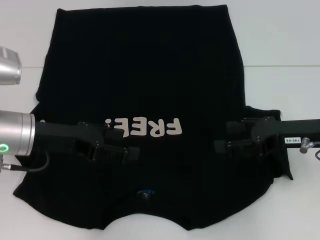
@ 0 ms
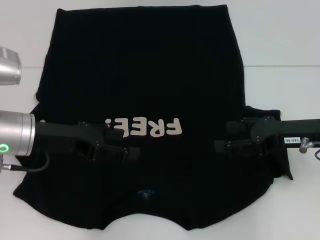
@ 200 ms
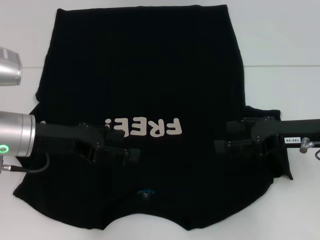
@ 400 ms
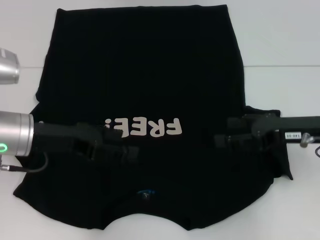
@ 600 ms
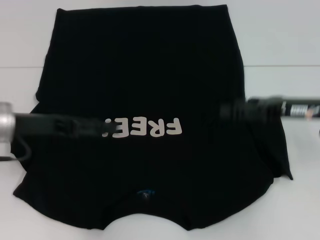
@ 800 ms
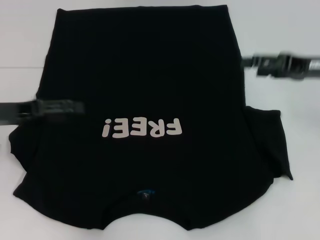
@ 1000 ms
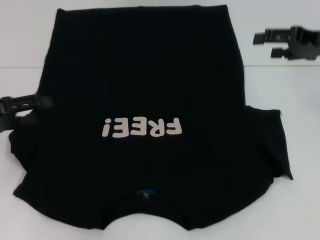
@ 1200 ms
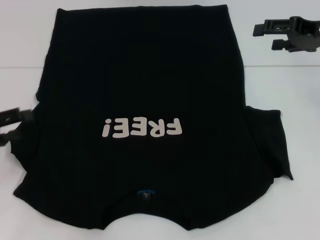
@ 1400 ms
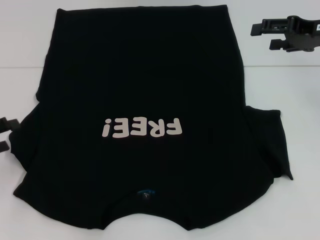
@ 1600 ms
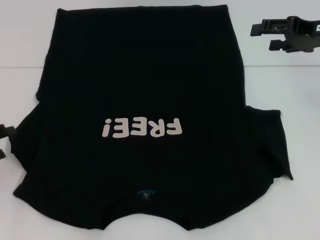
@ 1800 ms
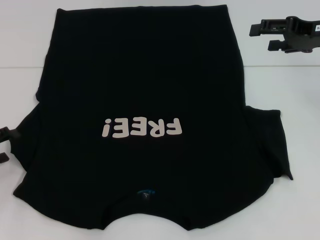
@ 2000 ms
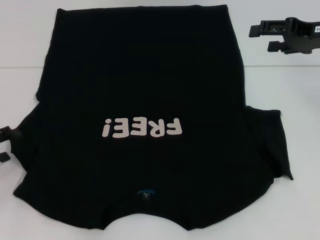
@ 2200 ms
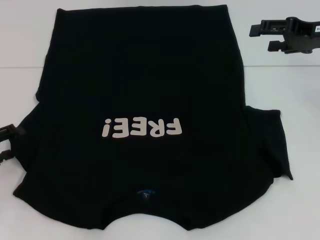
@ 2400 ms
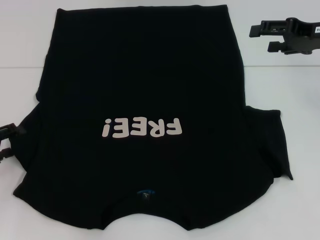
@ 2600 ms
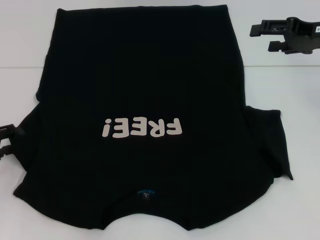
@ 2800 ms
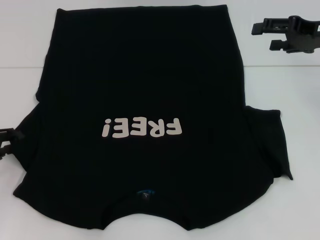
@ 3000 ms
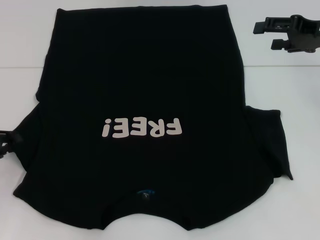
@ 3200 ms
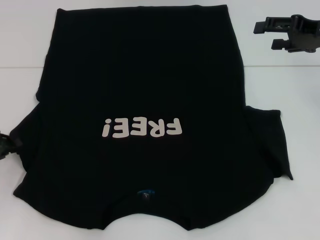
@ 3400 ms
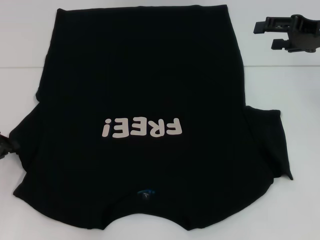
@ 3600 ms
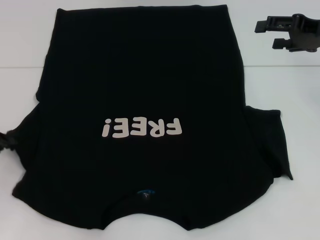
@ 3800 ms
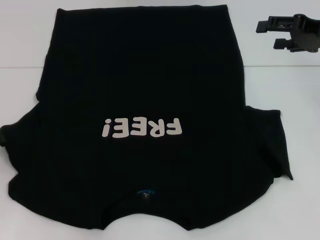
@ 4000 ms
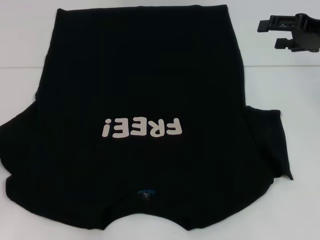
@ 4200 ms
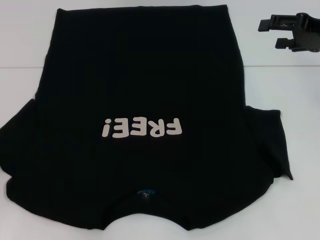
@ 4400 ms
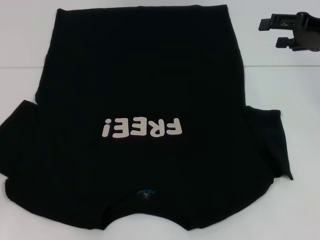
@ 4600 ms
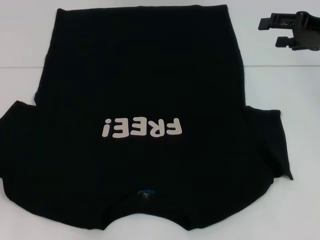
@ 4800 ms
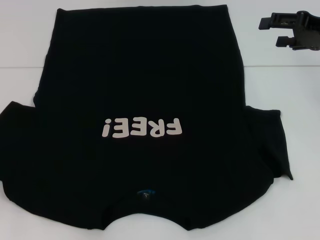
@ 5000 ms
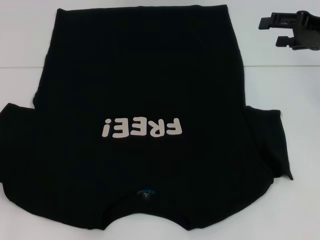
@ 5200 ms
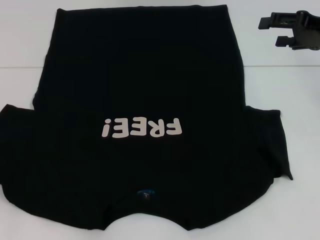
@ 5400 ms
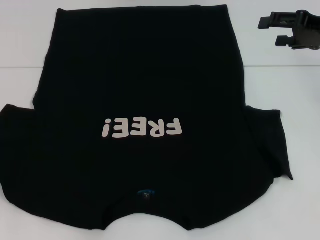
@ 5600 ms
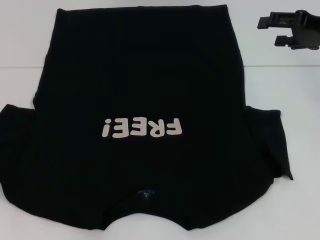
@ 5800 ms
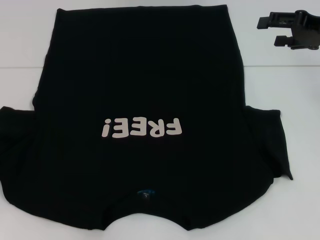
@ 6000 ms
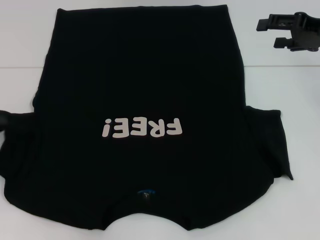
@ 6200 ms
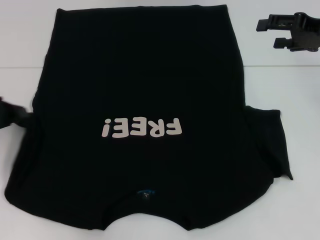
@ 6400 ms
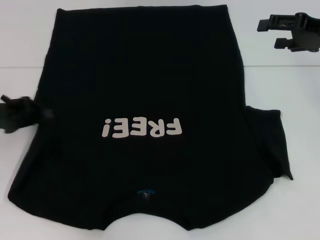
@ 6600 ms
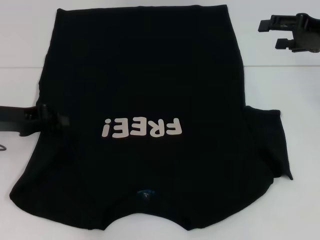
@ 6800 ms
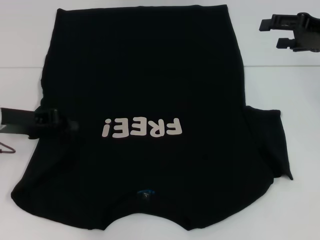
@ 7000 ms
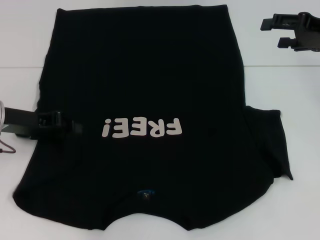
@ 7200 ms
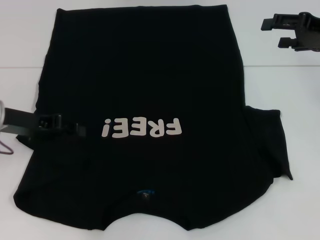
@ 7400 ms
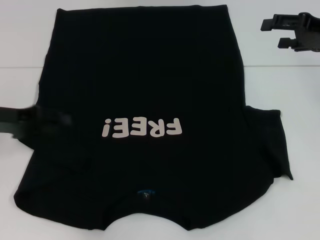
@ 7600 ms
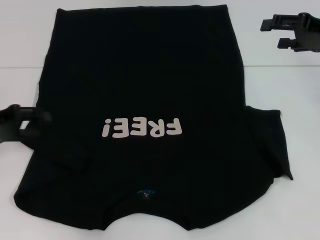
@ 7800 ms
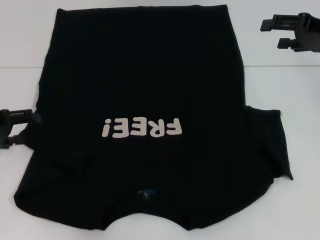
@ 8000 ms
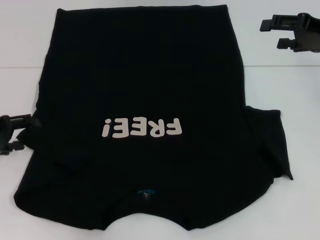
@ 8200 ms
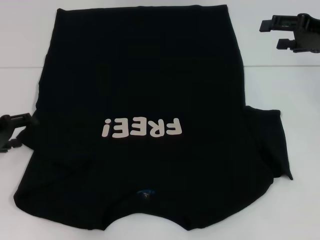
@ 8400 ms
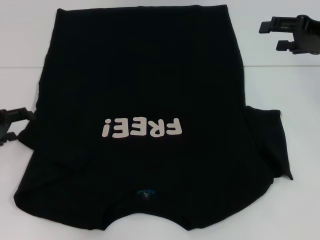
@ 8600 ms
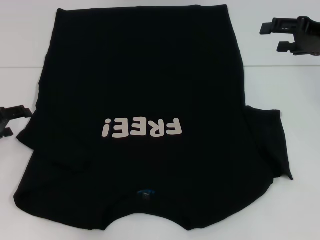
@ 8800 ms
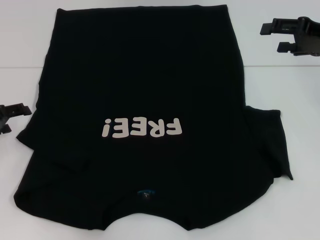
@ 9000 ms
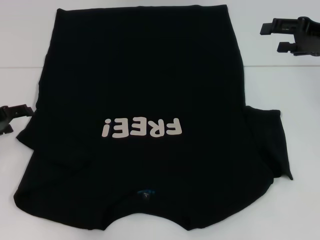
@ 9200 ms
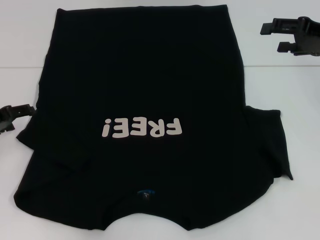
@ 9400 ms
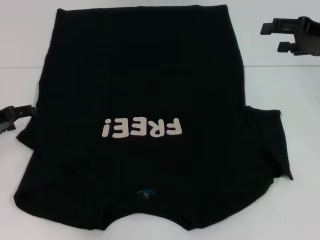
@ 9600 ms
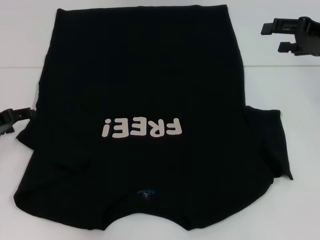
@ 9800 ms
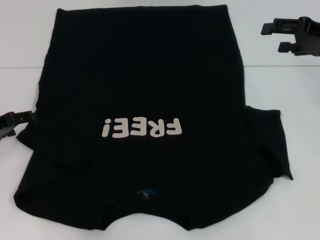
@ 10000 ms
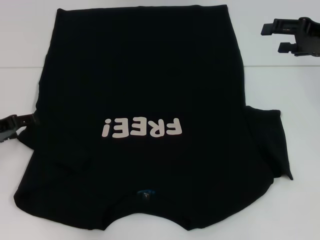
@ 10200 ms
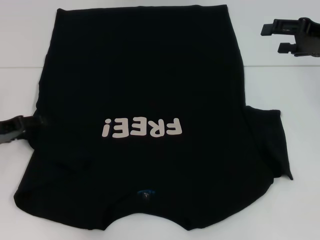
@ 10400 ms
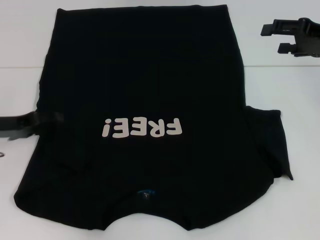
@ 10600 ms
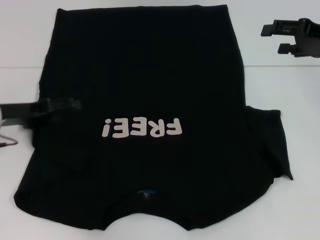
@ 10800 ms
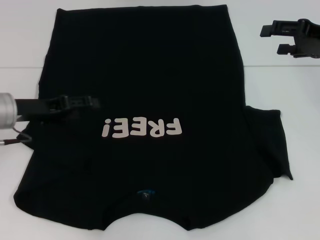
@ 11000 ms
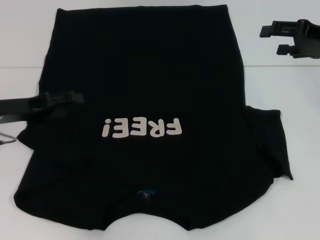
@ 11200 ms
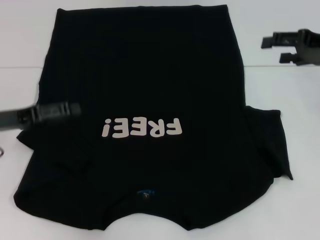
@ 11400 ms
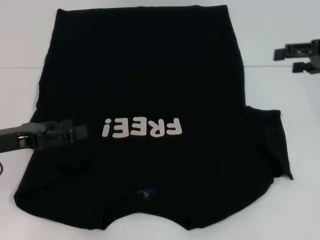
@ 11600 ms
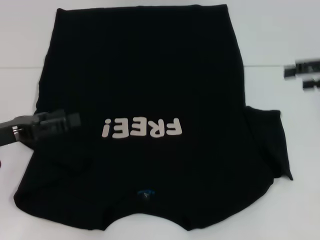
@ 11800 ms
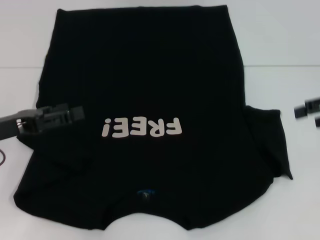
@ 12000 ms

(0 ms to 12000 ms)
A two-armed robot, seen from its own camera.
Step, 0 ms - 8400 ms: Fold the bottom left sleeve with your left hand.
0 ms - 1600 ms: The left gripper is displaced to the left by about 15 cm. The right gripper travels forward and upward by about 15 cm.
1600 ms - 3000 ms: The grippers stay close to where they were, moving slightly.
3000 ms - 4400 ms: The left gripper closes its fingers.
4400 ms - 6000 ms: The grippers move only a little.
6000 ms - 7600 ms: The left gripper heads to the right and forward, covering about 10 cm.
7600 ms - 9000 ms: The left gripper changes place by about 5 cm, and opens up.
9000 ms - 10400 ms: The grippers stay close to where they were, moving slightly.
10400 ms - 12000 ms: The right gripper is displaced backward by about 5 cm, while the left gripper changes place by some 5 cm.

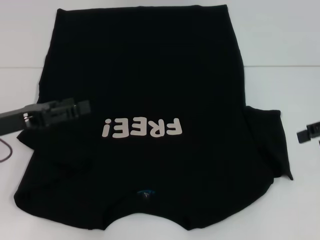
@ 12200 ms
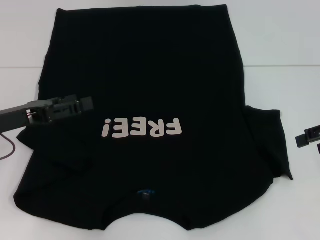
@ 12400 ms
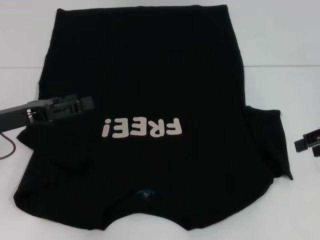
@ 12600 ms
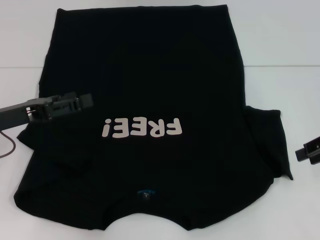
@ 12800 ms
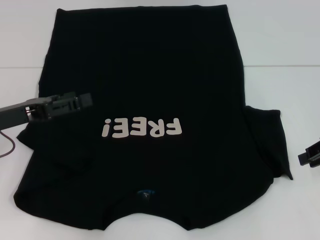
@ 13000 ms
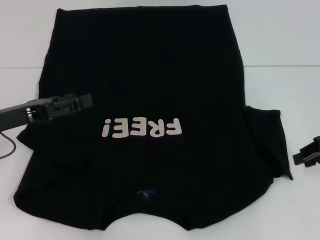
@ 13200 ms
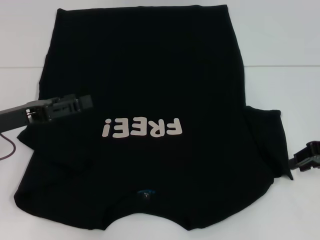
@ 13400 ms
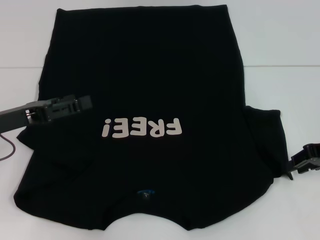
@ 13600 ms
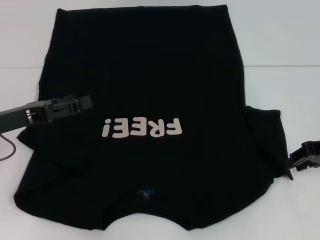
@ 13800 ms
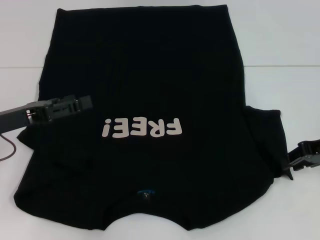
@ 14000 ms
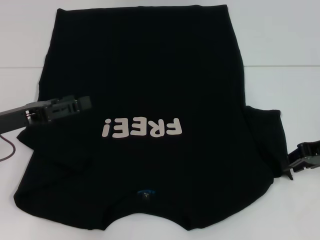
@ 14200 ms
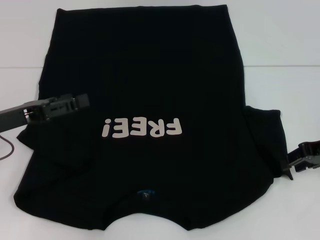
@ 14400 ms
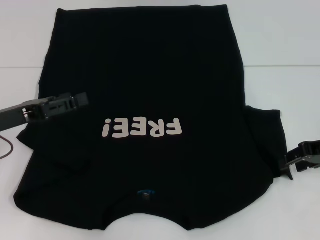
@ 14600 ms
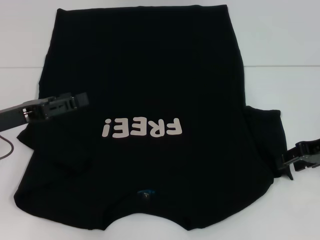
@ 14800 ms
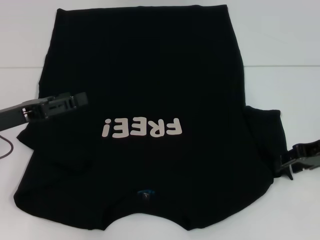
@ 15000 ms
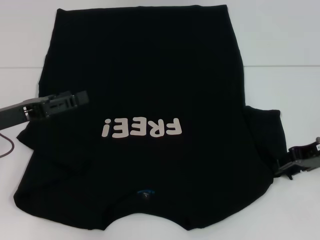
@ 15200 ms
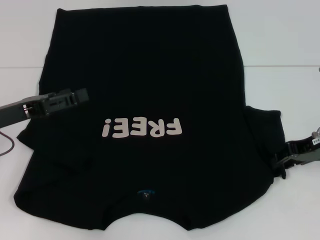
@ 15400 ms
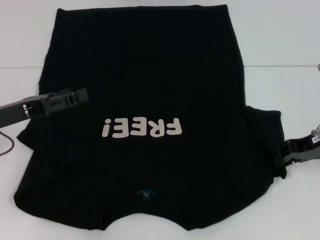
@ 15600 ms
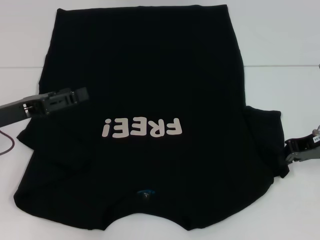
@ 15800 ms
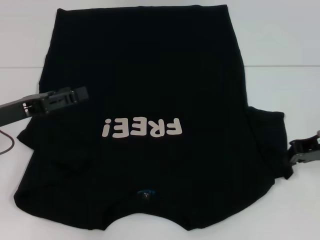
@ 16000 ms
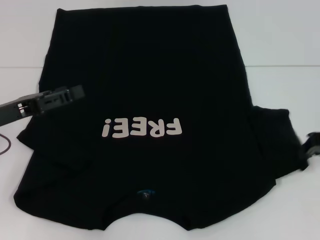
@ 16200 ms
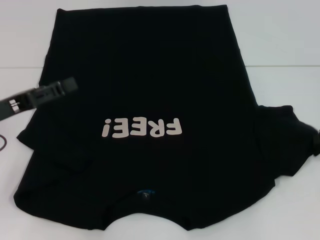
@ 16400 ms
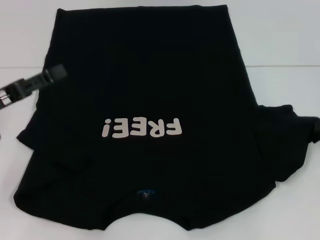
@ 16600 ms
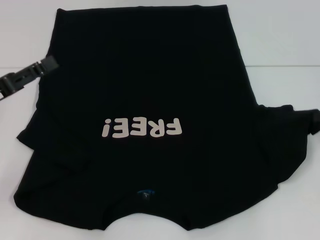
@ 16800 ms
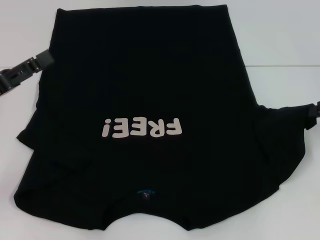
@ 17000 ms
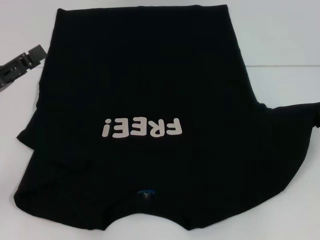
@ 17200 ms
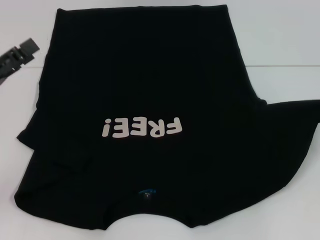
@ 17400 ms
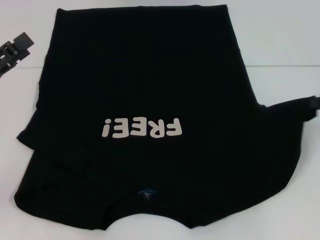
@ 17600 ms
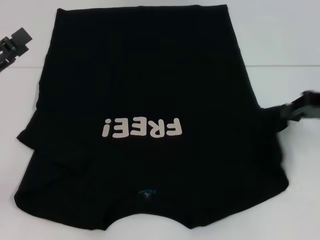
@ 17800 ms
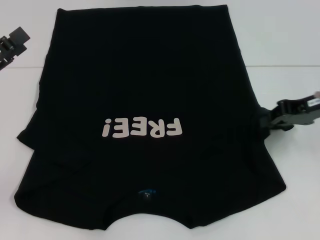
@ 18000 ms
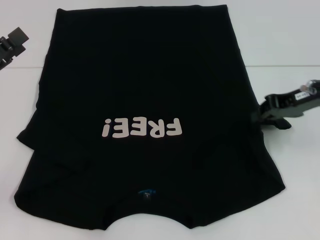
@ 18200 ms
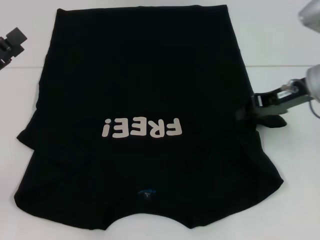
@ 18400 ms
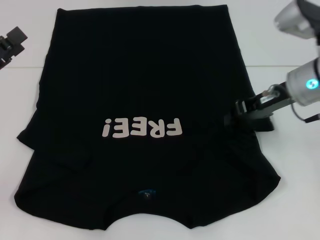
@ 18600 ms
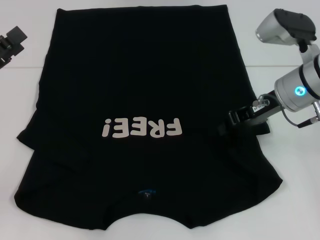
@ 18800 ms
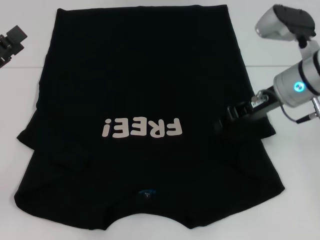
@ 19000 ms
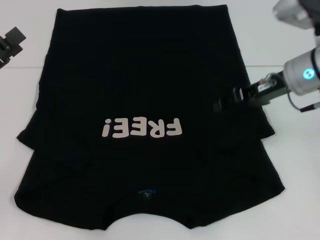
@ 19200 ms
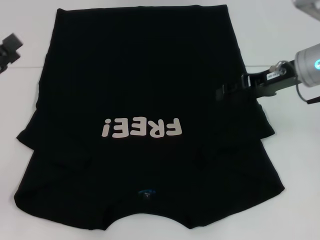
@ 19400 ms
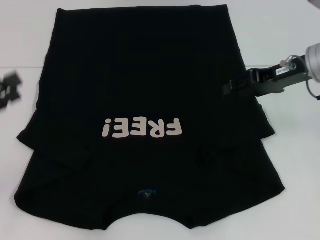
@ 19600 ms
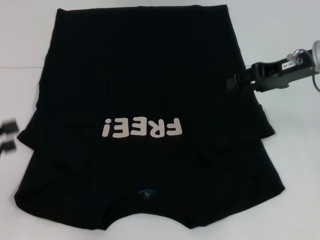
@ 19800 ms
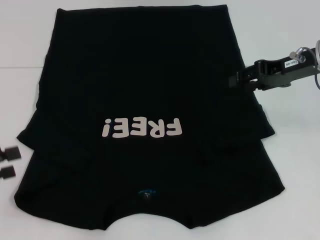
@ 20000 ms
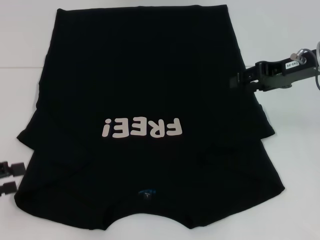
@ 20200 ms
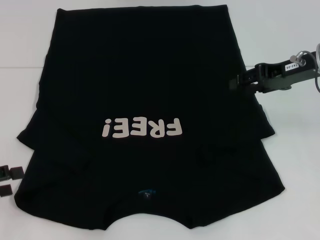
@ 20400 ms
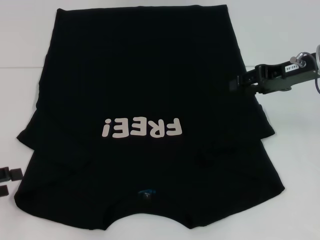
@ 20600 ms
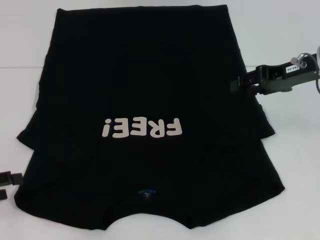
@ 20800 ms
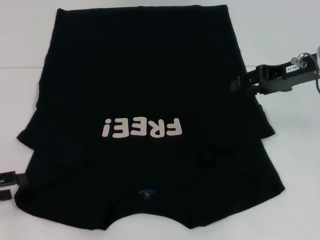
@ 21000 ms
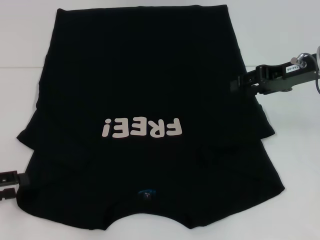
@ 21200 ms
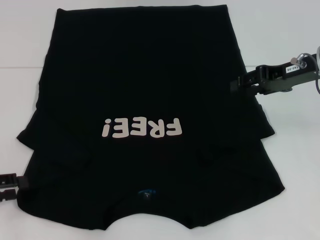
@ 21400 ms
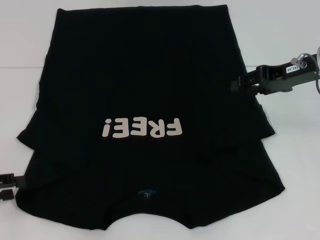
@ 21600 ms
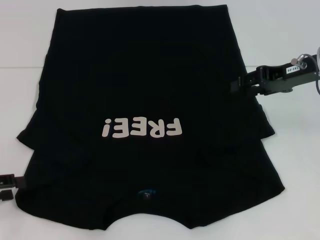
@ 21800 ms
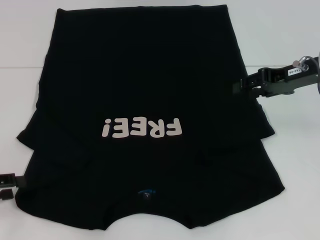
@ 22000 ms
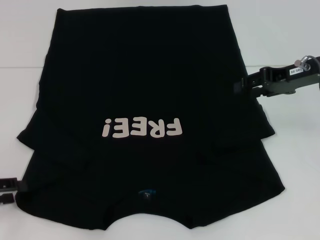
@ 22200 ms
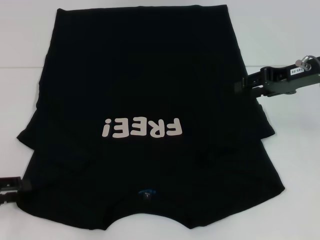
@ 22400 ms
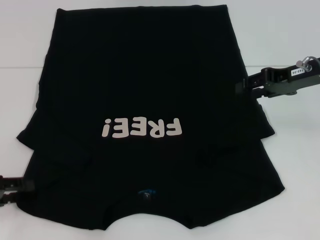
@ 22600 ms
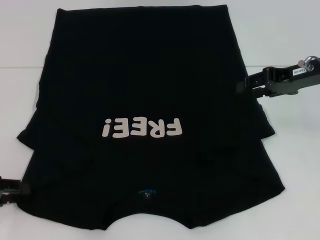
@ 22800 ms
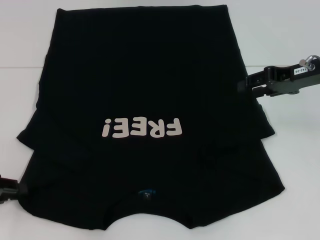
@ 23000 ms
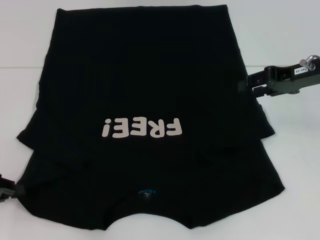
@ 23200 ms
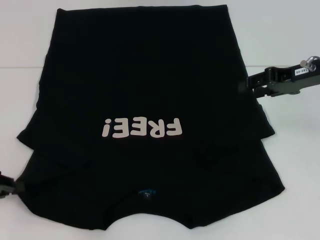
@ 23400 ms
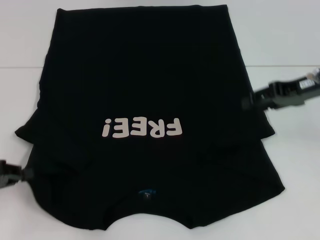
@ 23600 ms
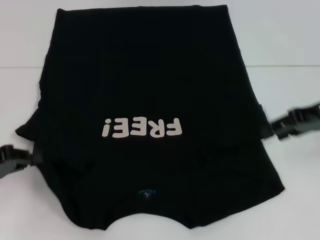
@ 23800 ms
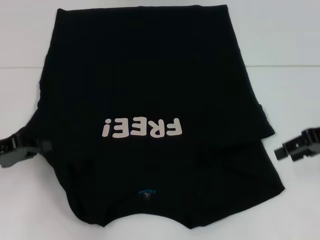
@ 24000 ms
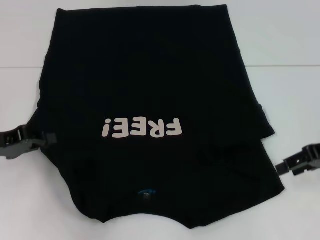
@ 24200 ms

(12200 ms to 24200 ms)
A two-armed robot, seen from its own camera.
Step, 12200 ms - 19600 ms: Fold the bottom right sleeve with your right hand.
12200 ms - 13800 ms: The right gripper moves downward, some 5 cm, and closes its fingers.
13800 ms - 15200 ms: The grippers move only a little.
15200 ms - 16600 ms: The right gripper travels to the right by some 5 cm, and closes up.
16600 ms - 18200 ms: The right gripper travels to the left by about 10 cm.
18200 ms - 19800 ms: The right gripper opens. The left gripper moves backward, approximately 5 cm.
21200 ms - 22600 ms: The grippers make only small movements.
22600 ms - 24200 ms: The left gripper goes about 5 cm forward, and closes its fingers. Meanwhile the right gripper moves backward, about 5 cm.
